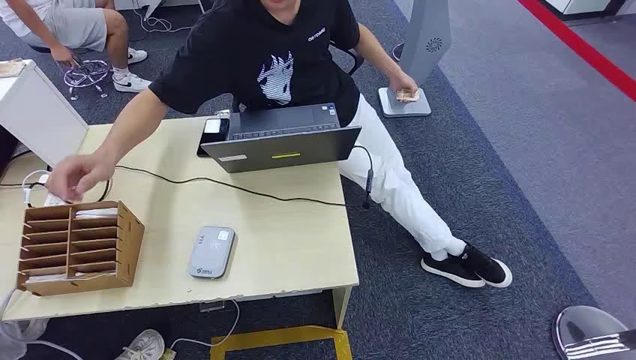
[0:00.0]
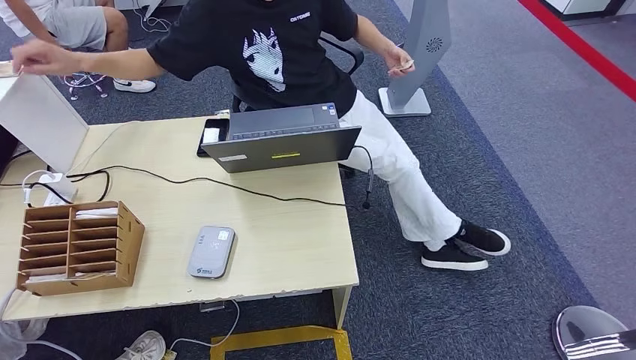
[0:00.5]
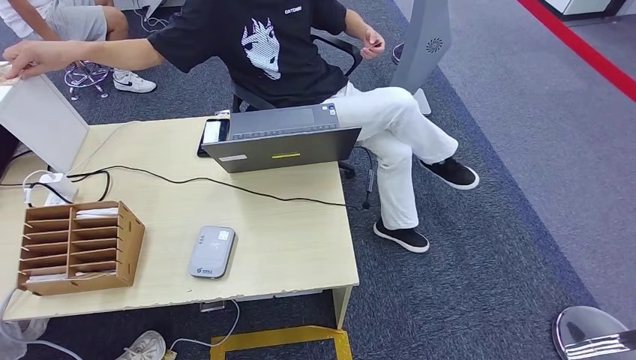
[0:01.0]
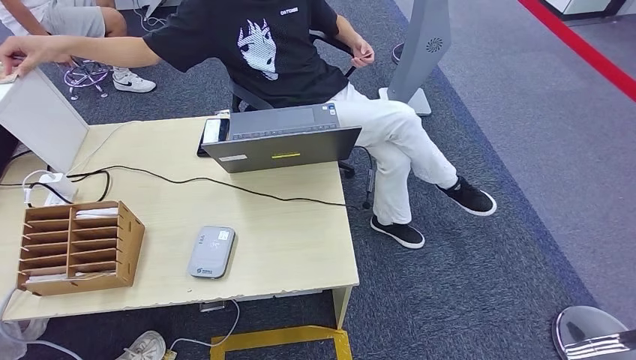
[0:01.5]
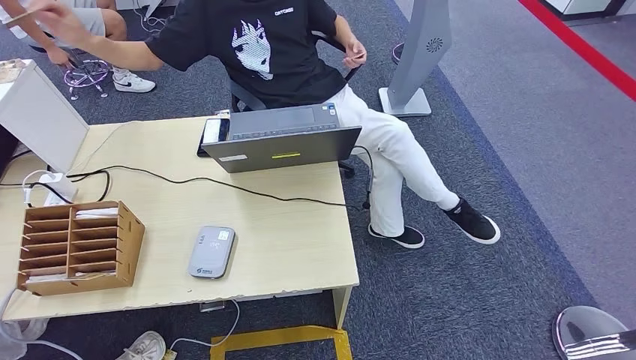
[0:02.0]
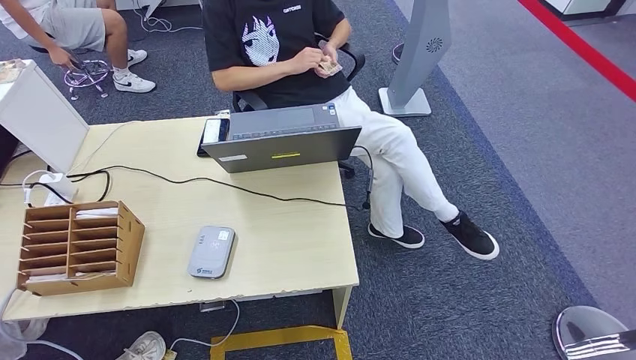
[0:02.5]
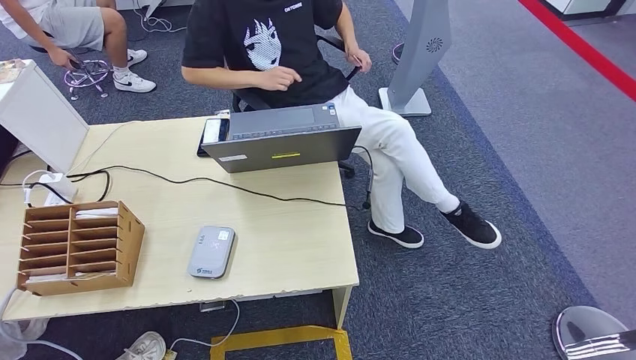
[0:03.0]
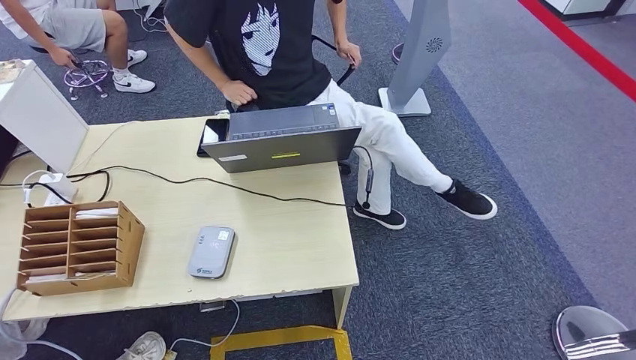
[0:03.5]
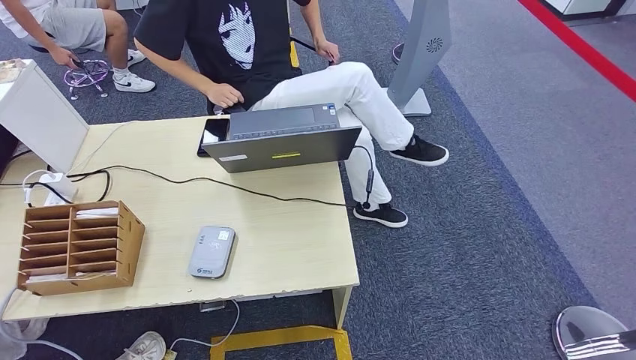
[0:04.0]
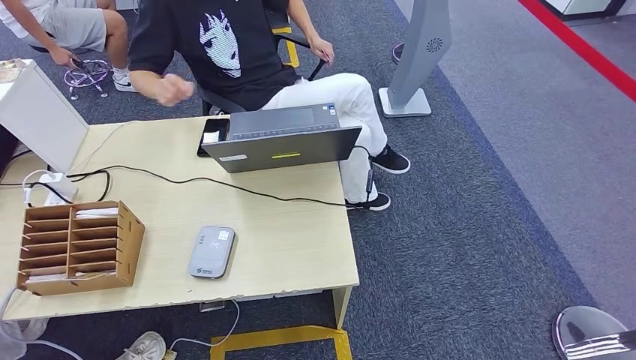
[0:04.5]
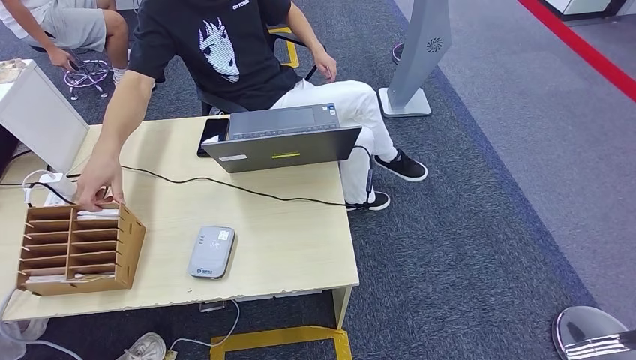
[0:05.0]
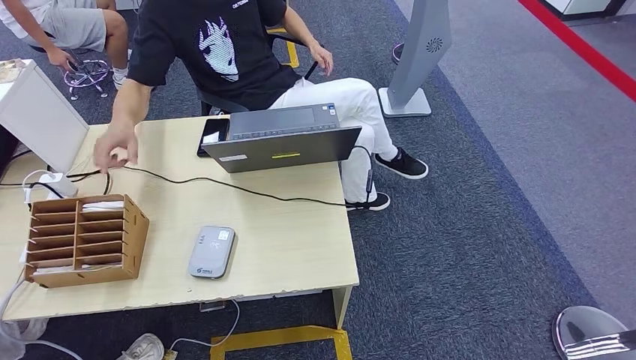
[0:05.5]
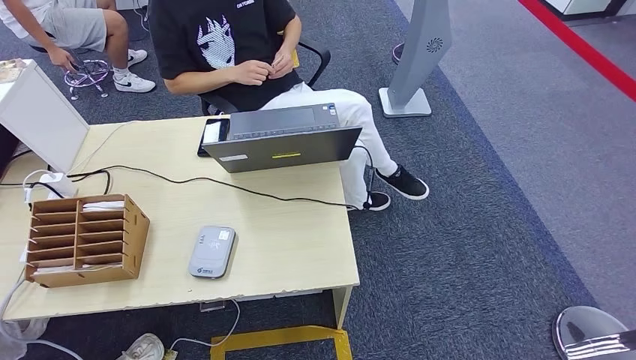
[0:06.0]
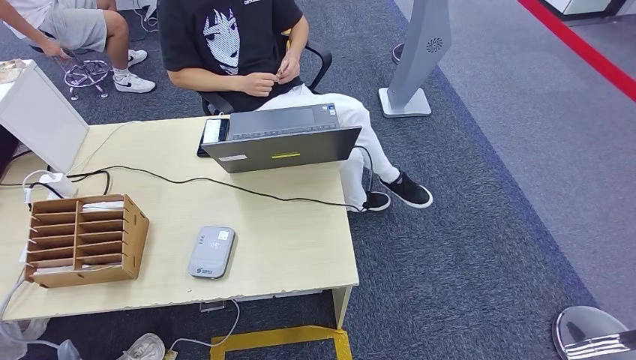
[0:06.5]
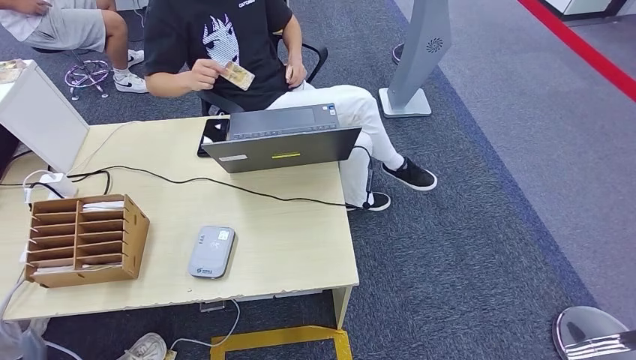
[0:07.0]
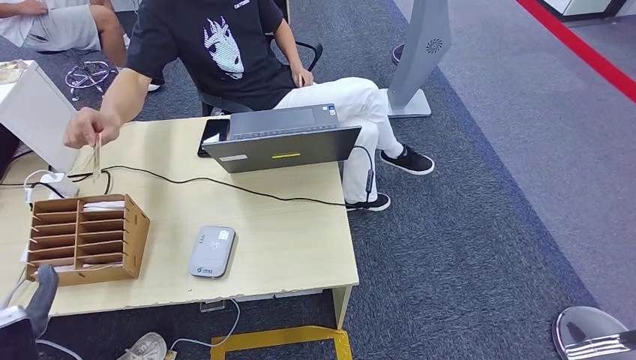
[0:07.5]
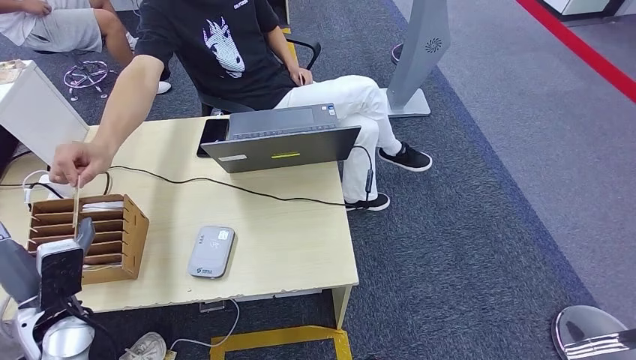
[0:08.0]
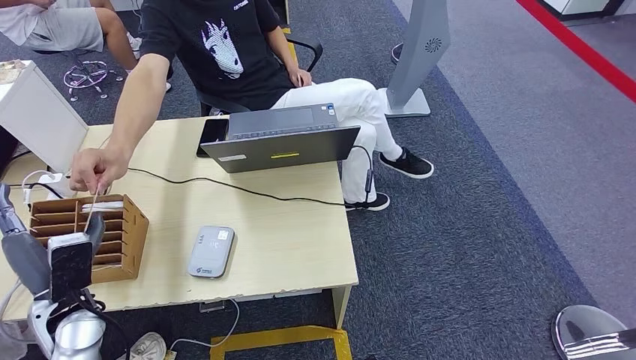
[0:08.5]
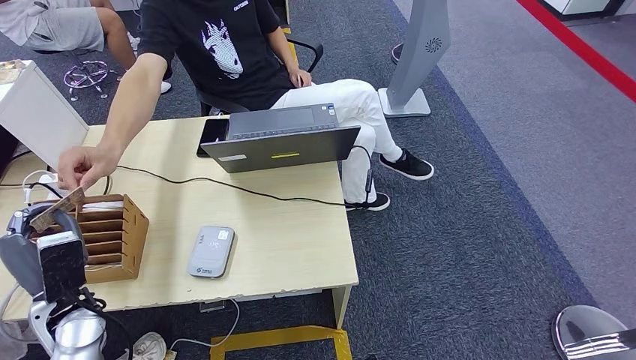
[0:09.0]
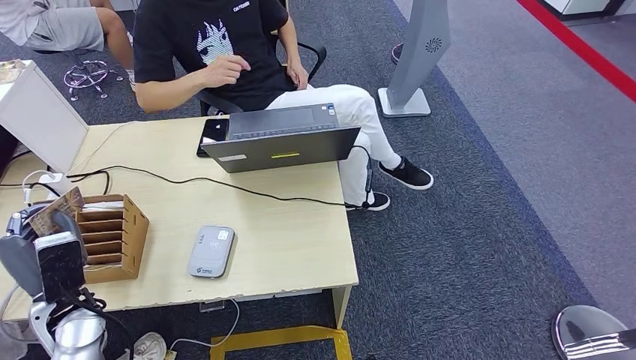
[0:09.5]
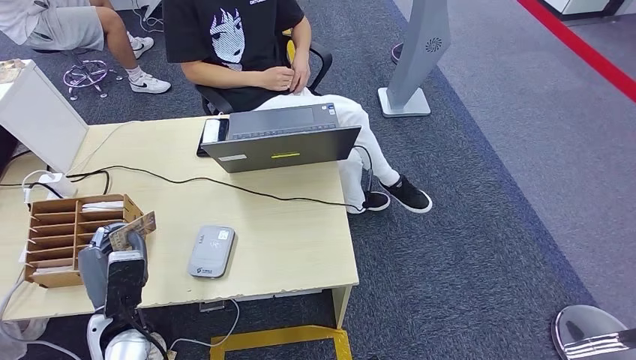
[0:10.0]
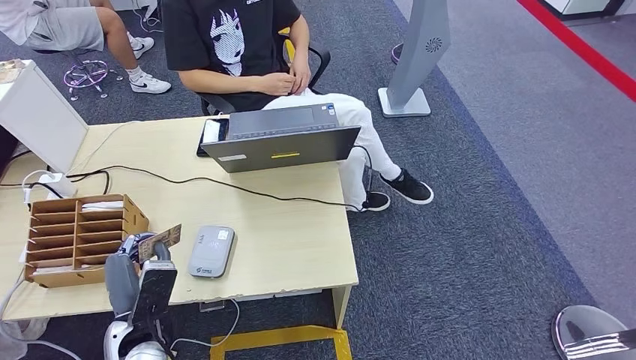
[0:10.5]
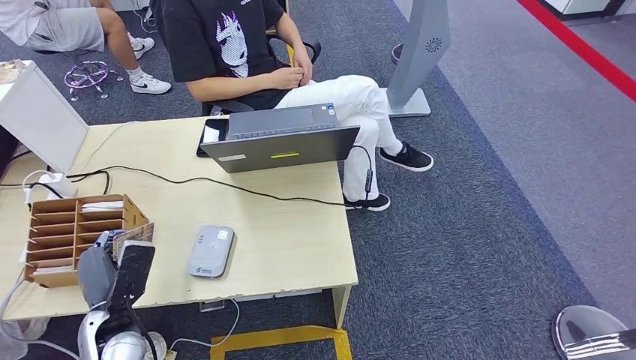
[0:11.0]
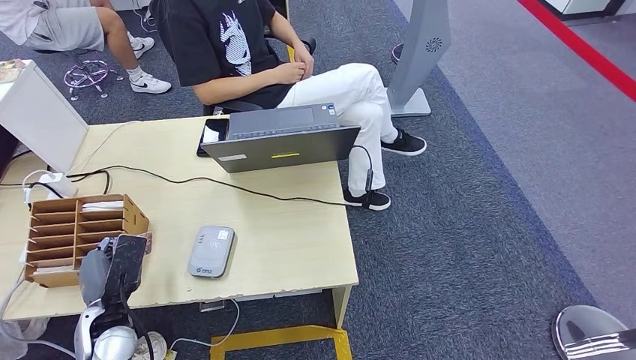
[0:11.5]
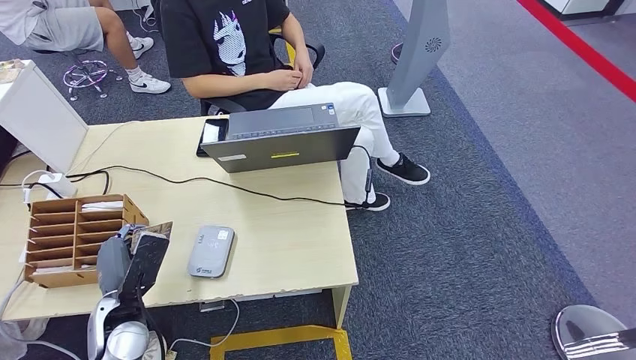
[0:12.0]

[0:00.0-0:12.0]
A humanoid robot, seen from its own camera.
Step, 0:00.0 to 0:09.5: Take the ID card from the person's hand.
0:02.0 to 0:04.0: The left hand goes roughly 5 cm to the left.
0:04.0 to 0:06.0: The left hand shifts some 5 cm upward.
0:06.0 to 0:08.0: The left hand heads forward and upward, covering approximately 25 cm.
0:08.0 to 0:10.0: The left hand travels to the right by some 10 cm.

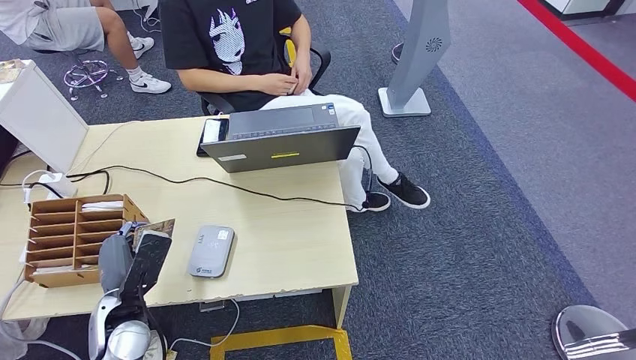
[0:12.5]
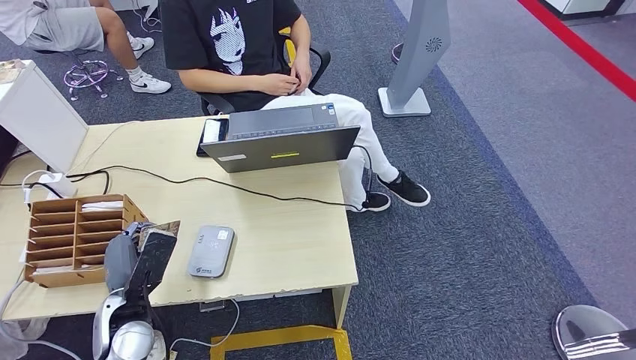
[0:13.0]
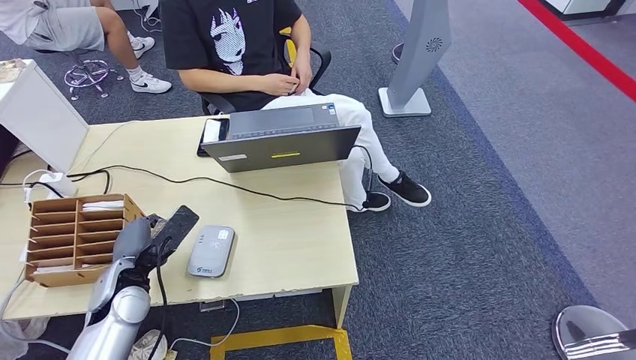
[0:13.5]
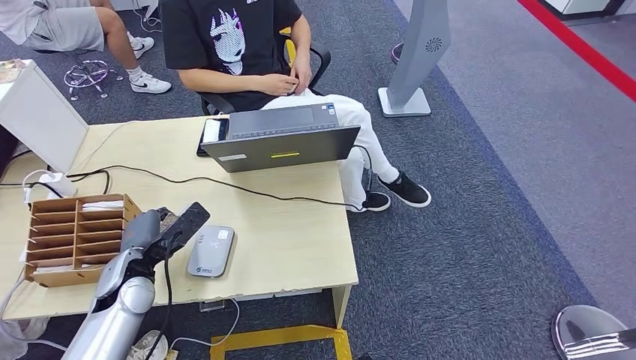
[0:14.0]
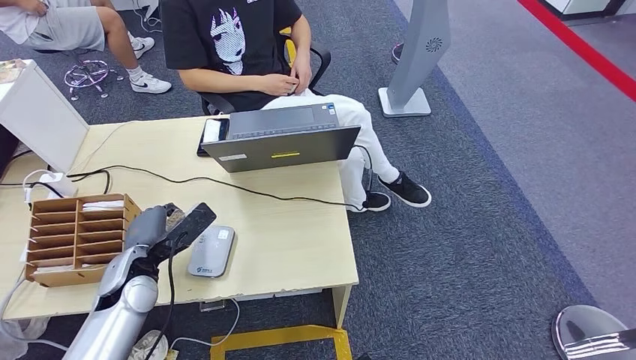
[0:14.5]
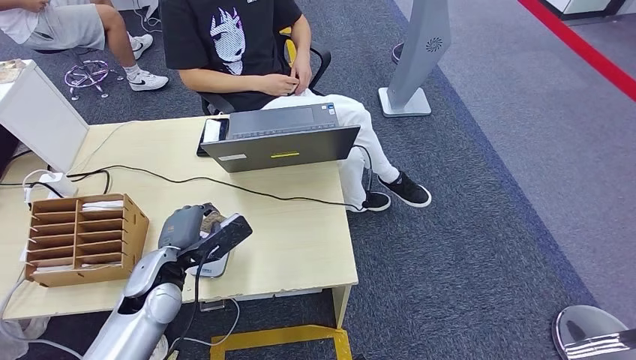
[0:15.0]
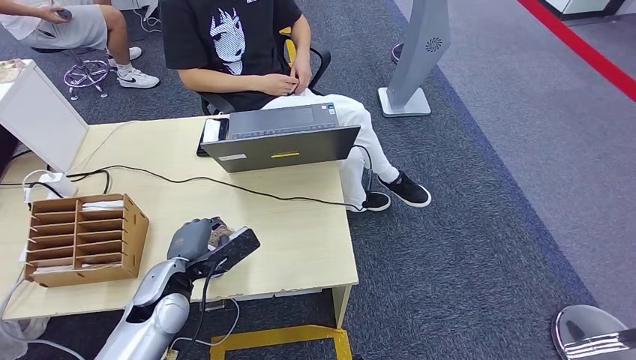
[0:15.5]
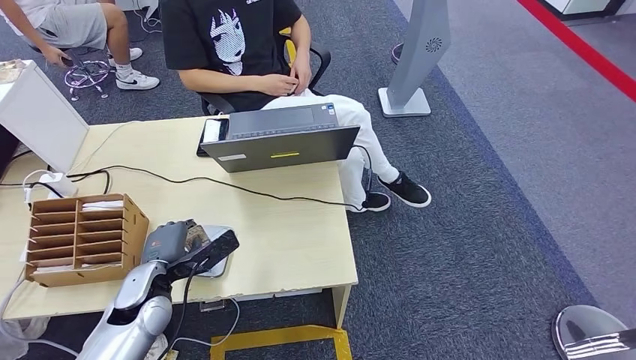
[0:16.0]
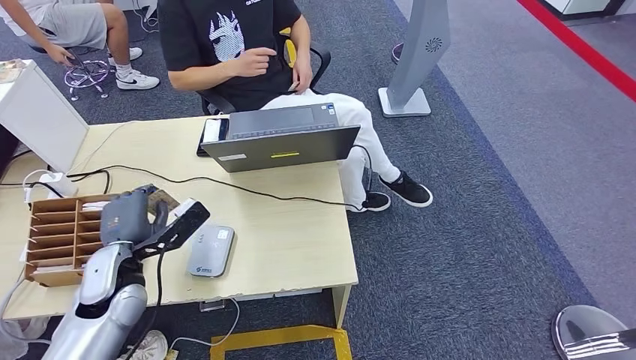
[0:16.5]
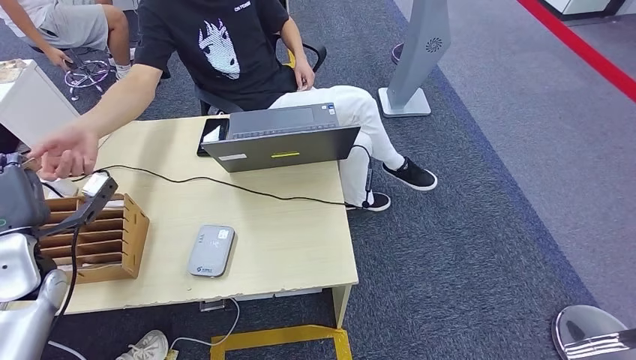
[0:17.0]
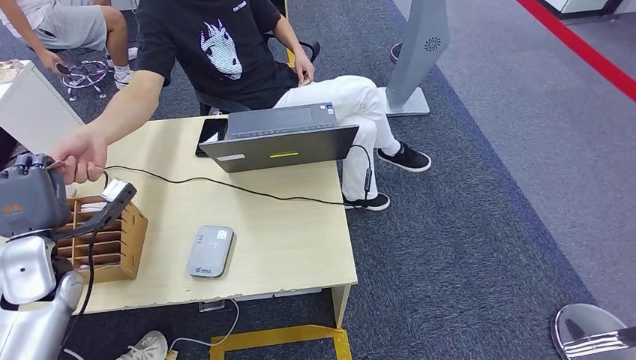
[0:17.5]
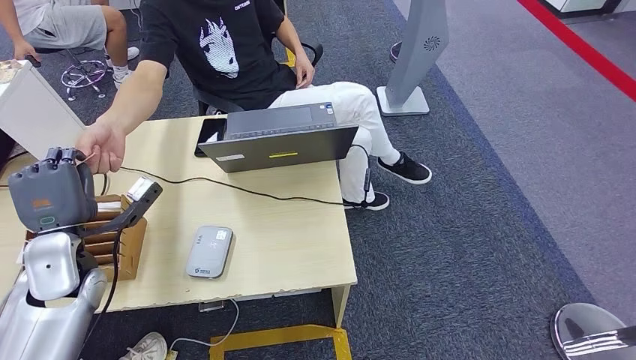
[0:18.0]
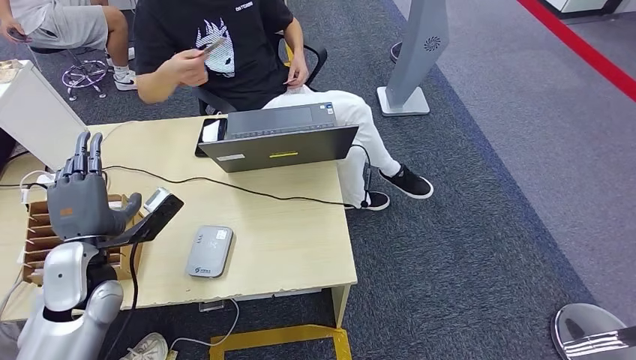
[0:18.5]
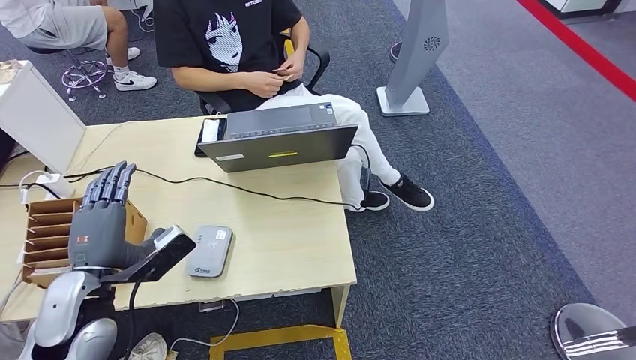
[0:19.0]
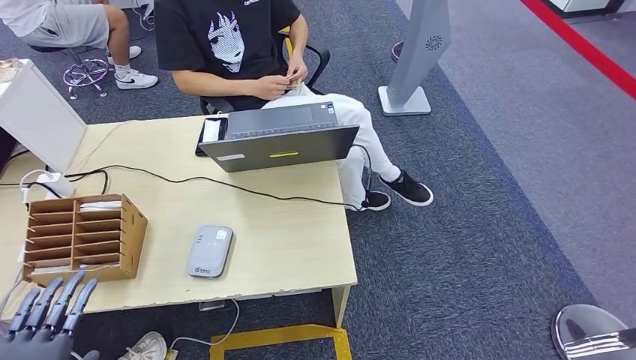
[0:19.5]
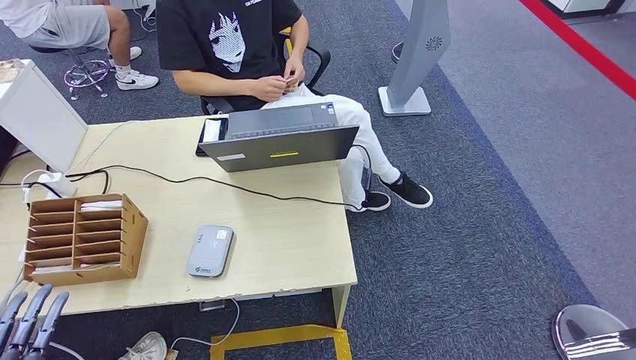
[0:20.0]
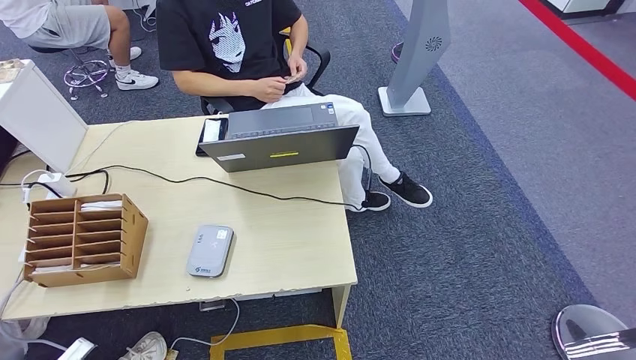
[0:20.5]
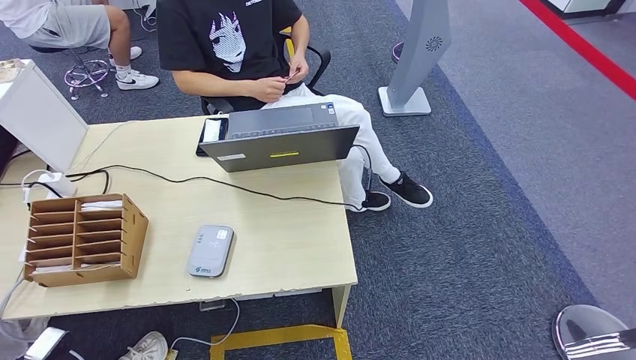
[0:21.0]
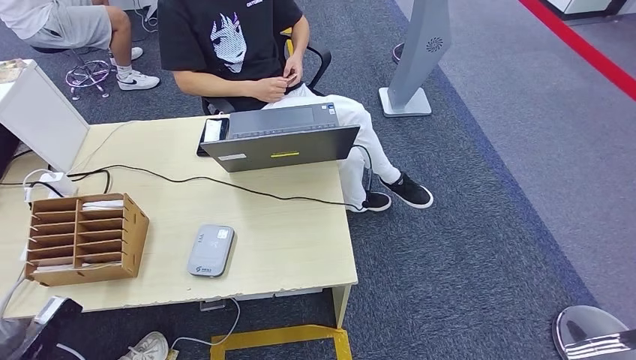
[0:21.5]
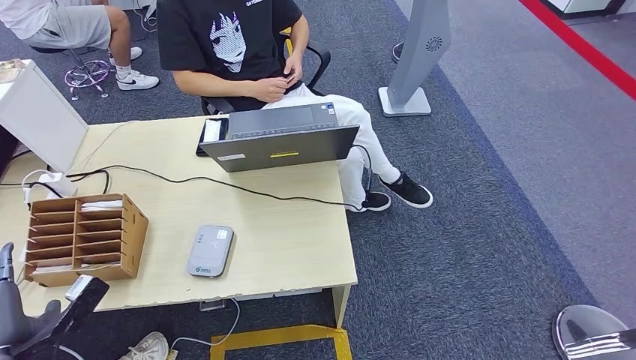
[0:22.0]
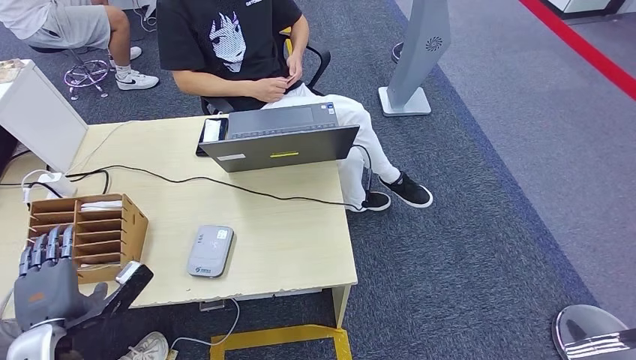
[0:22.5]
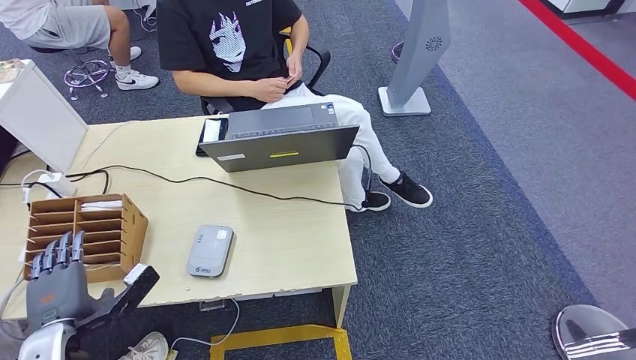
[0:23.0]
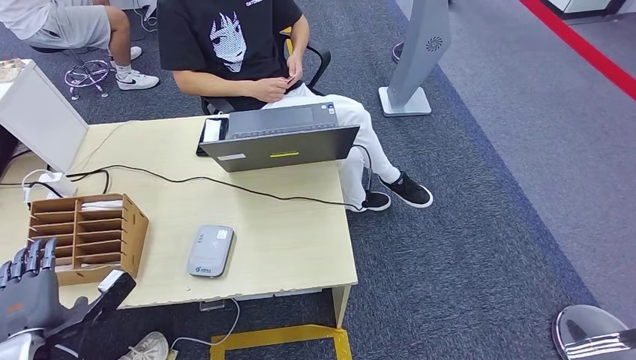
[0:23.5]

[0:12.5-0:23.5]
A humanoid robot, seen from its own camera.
Step, 0:12.5 to 0:14.5: Place the ID card on the card reader.
Step, 0:15.0 to 0:18.0: Hand the ID card to the person.
0:12.5 to 0:14.5: The left hand moves forward, approximately 5 cm.
0:20.0 to 0:21.5: The left hand heads forward and to the left, covering approximately 10 cm.
0:21.5 to 0:23.5: The left hand shifts approximately 5 cm forward.
